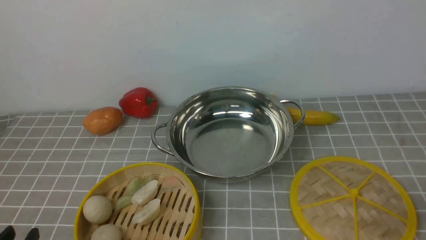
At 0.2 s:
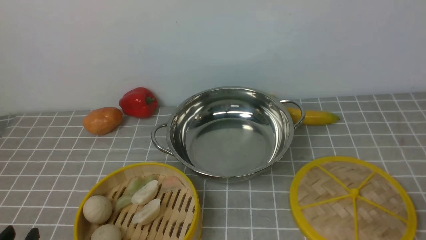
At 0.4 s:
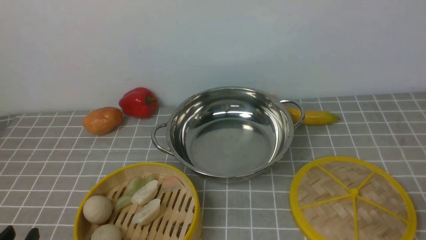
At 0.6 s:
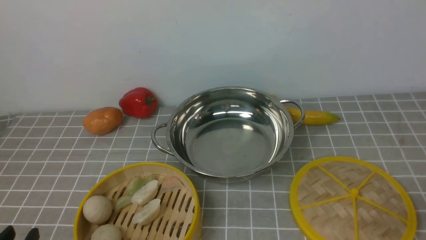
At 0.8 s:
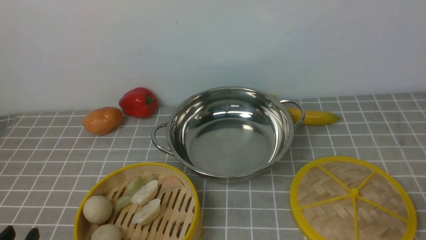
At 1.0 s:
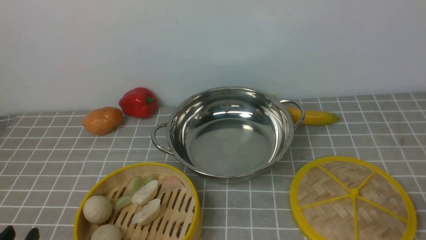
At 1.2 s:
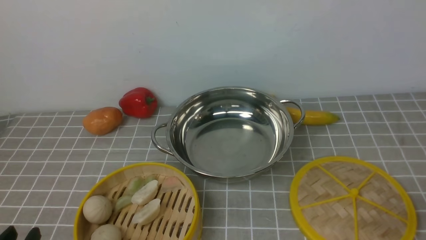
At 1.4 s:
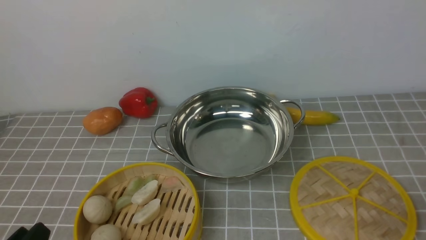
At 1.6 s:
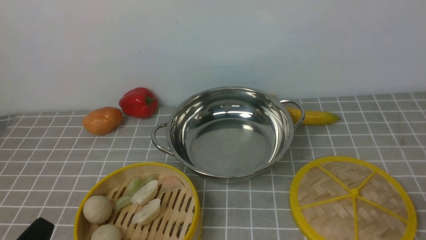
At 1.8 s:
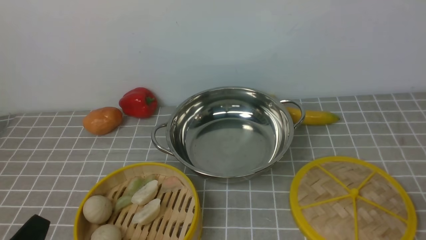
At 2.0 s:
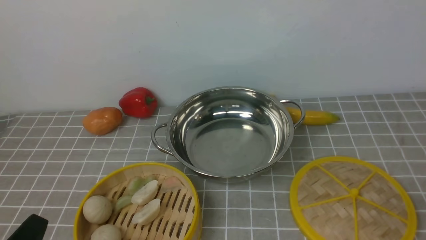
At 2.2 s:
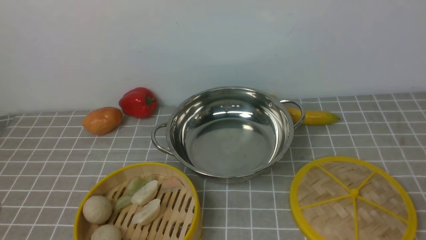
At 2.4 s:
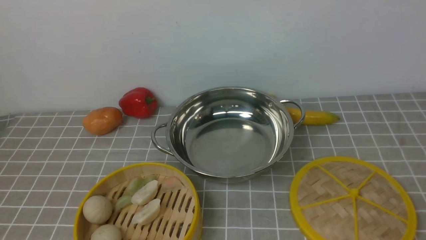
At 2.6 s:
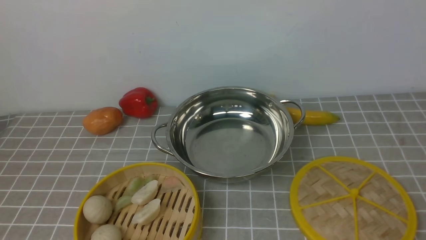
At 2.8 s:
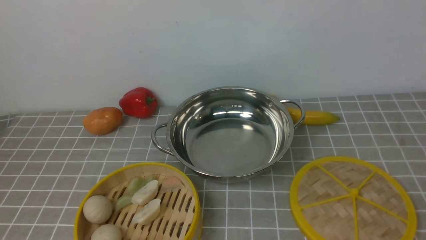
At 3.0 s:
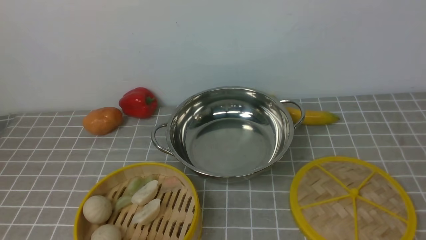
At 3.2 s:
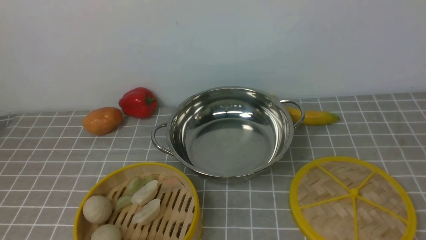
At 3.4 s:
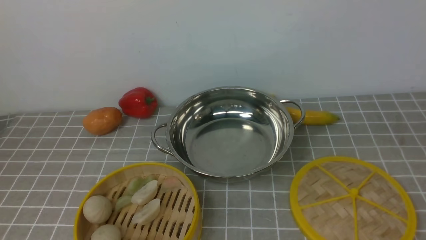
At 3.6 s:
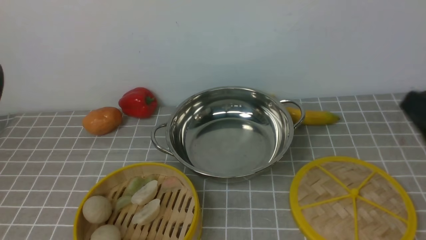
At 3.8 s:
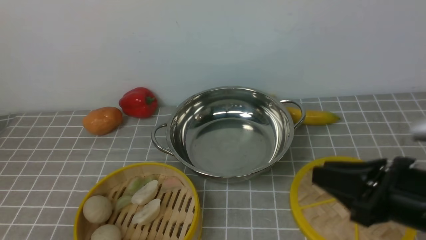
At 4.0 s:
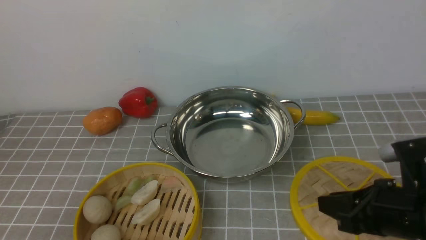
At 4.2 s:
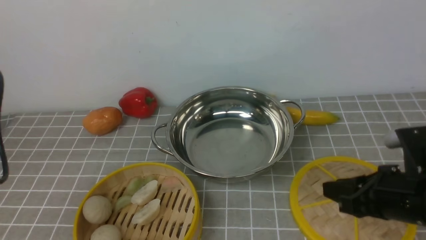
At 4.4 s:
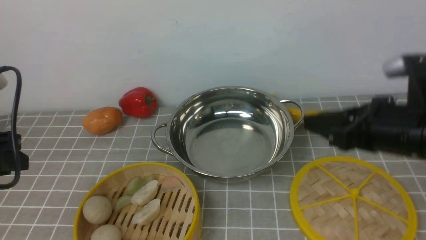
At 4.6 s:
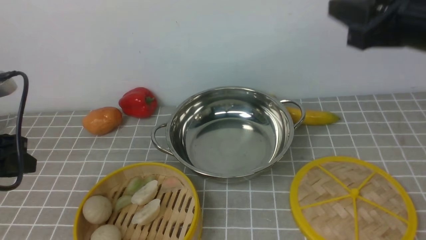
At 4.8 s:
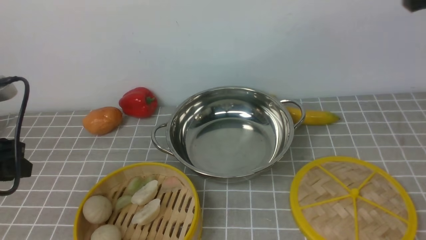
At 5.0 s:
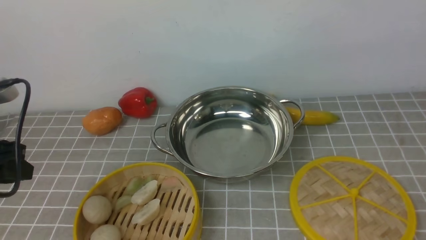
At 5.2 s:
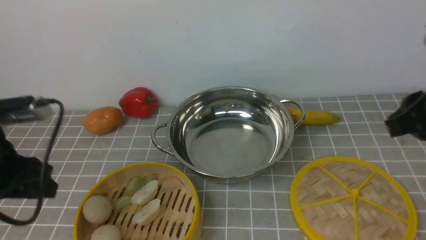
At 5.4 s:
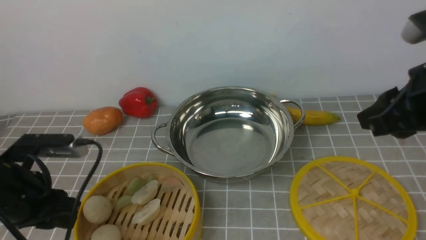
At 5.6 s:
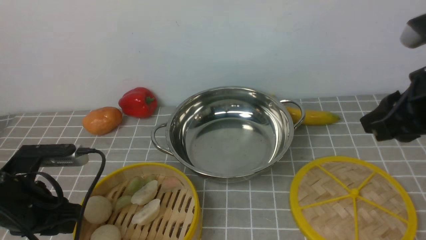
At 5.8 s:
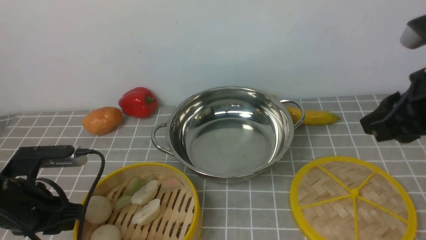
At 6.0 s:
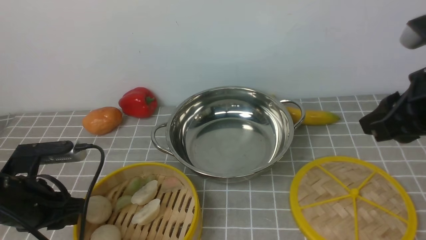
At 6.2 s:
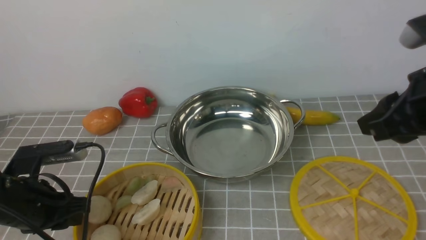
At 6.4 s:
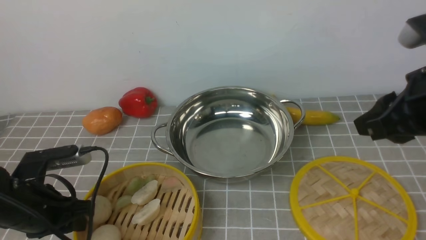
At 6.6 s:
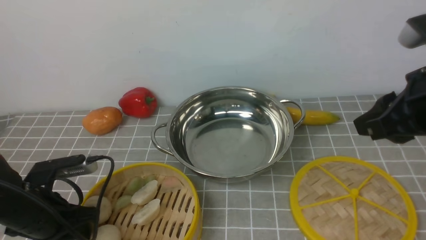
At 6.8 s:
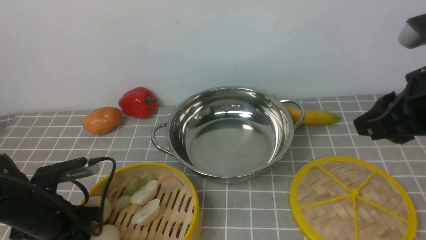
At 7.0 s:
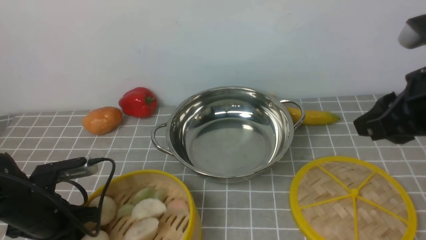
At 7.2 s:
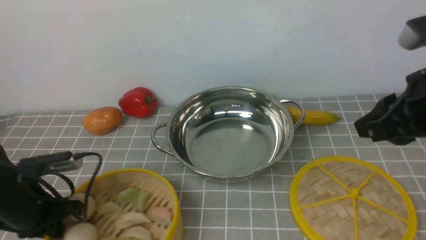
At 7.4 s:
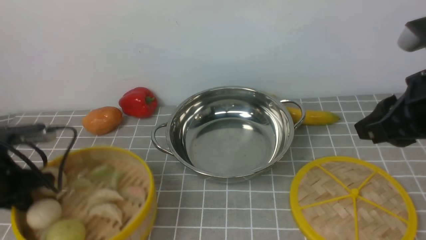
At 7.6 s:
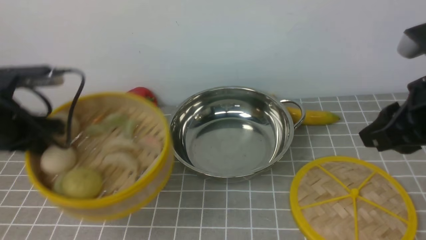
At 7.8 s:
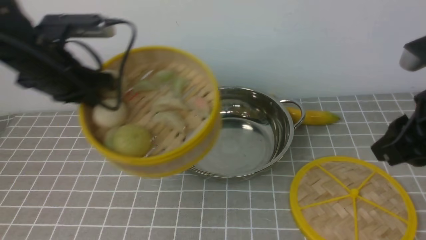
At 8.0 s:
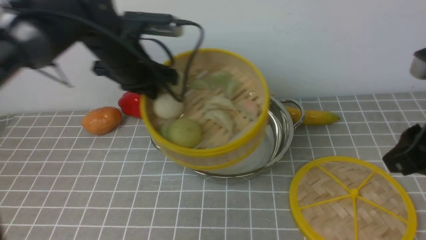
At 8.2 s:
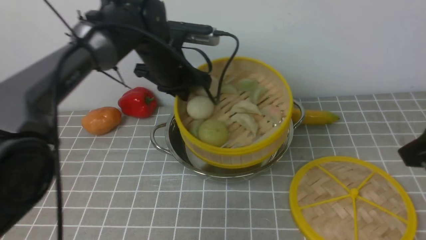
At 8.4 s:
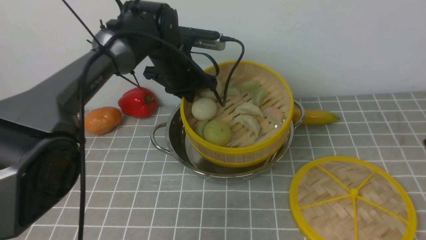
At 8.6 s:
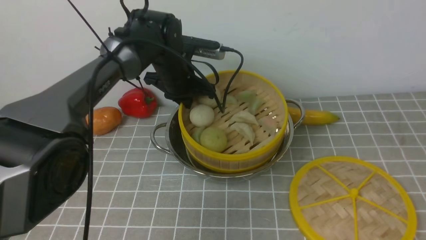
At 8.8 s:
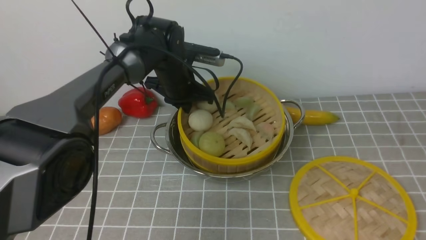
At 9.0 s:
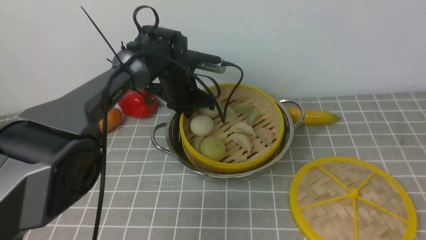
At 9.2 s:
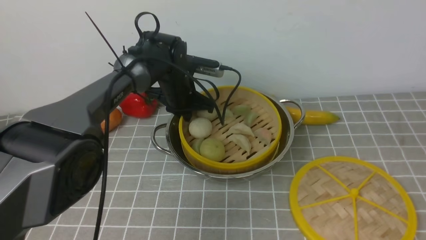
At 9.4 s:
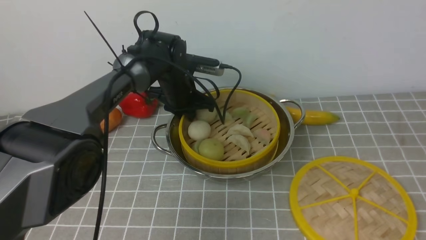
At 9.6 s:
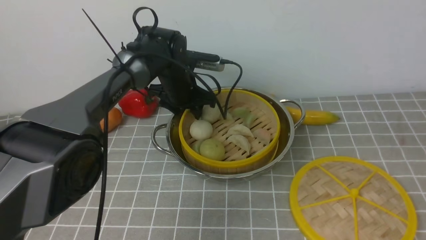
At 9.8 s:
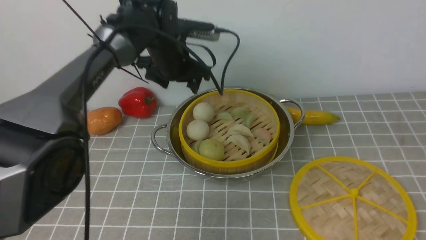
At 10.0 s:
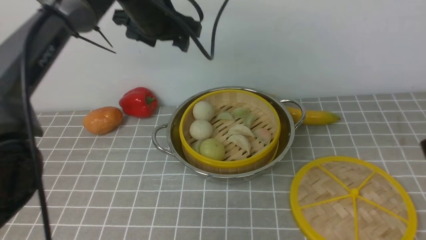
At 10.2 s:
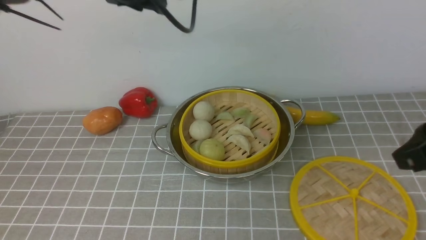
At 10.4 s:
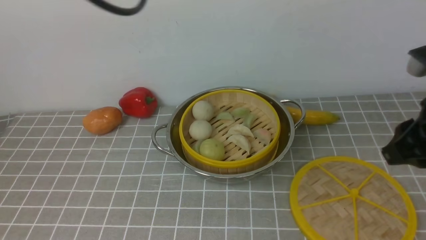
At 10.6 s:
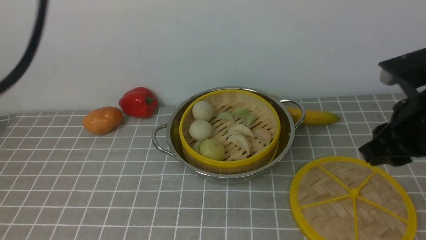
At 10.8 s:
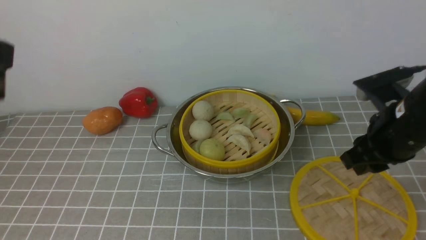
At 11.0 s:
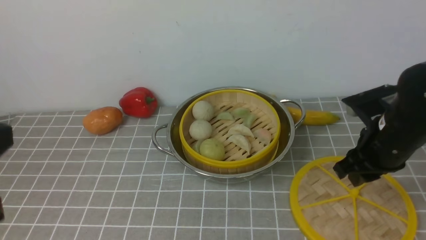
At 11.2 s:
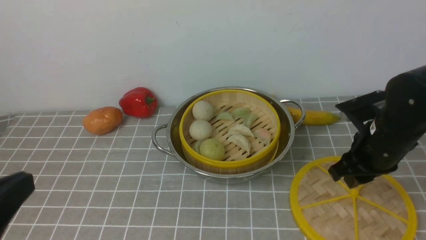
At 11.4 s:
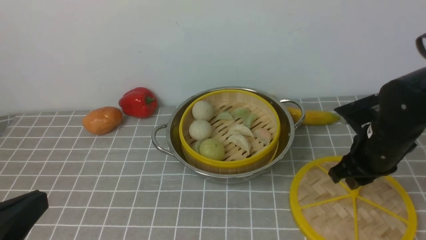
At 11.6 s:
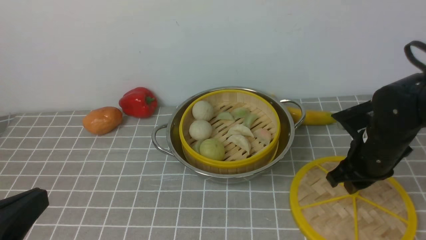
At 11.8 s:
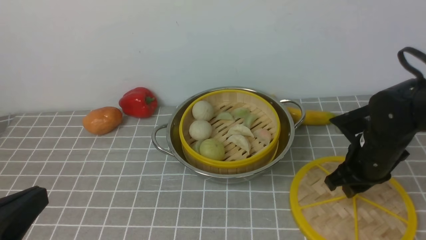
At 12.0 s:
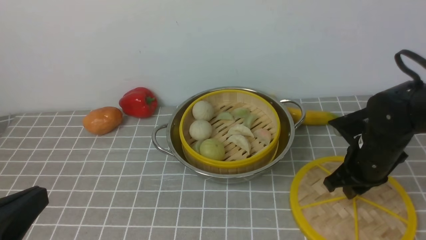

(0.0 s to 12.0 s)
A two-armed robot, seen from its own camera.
Task of the whole recording: place the steamer in the pot on the grey tablecloth, and put the lid on the steamer.
Step, 0.0 s - 7.2 s: use the left arm to lift the steamer closest to it.
Step, 7.4 s - 9.6 s: use the left arm to put the steamer into the iron steamer pot in the middle.
1.6 s - 3.0 s: The left gripper moves upward, approximately 20 cm.
3.0 s - 4.4 s: The right gripper goes some 20 cm forward and to the left, while the left gripper shifts approximately 20 cm forward, downward and to the left.
4.4 s - 6.0 s: The right gripper goes upward and returns, some 10 cm each way; the left gripper travels downward and to the right by approximately 10 cm.
6.0 s - 7.6 s: The left gripper is displaced forward and upward by some 15 cm, and closes its fingers.
7.6 s - 9.0 s: The right gripper goes some 15 cm backward and upward. The left gripper travels to the right, forward and downward by approximately 25 cm.
9.0 s - 10.4 s: The left gripper heads upward and backward, covering about 35 cm, and opens, then closes again; the right gripper travels forward and downward by roughly 15 cm.
10.4 s - 12.0 s: The left gripper goes some 30 cm backward and downward; the right gripper is displaced downward and forward by about 15 cm.

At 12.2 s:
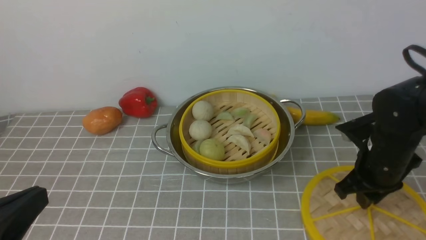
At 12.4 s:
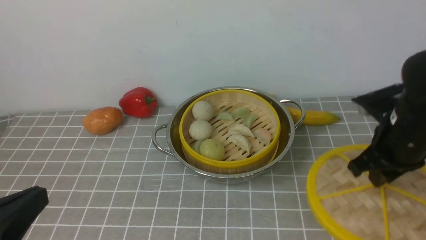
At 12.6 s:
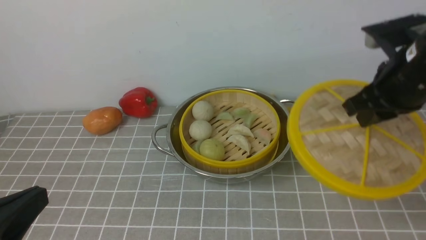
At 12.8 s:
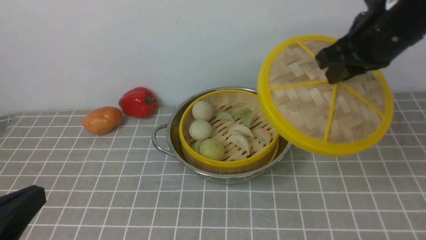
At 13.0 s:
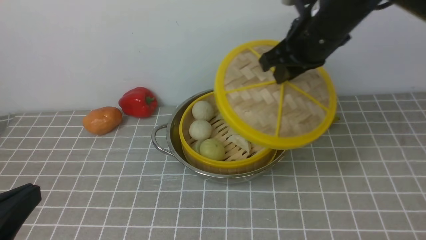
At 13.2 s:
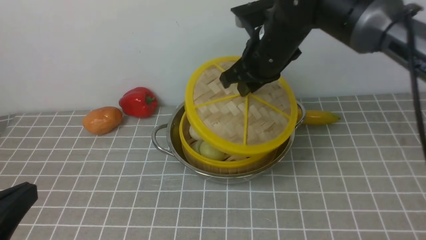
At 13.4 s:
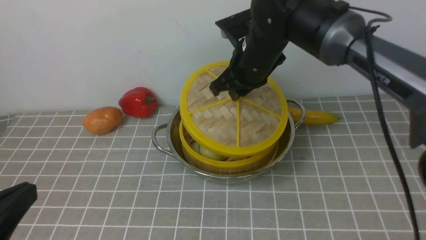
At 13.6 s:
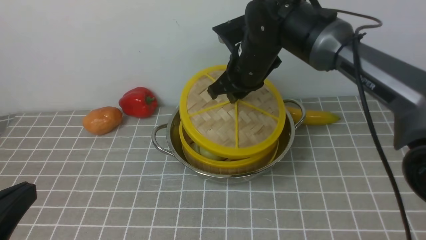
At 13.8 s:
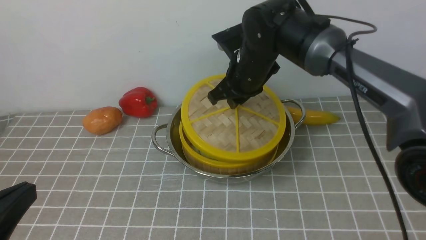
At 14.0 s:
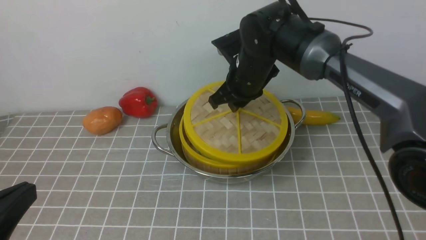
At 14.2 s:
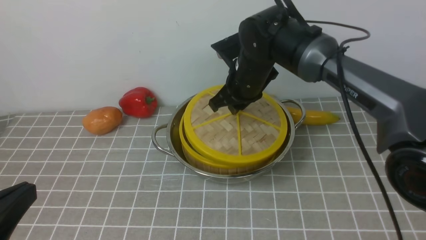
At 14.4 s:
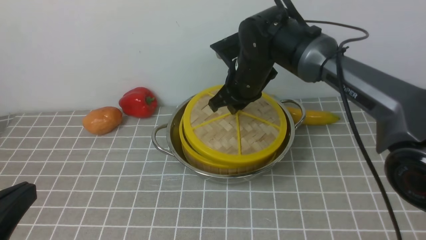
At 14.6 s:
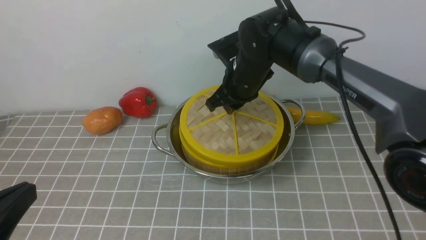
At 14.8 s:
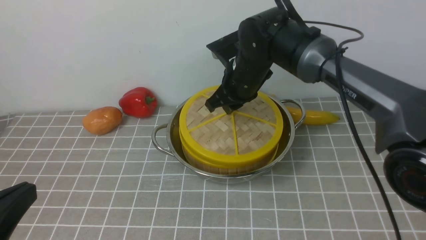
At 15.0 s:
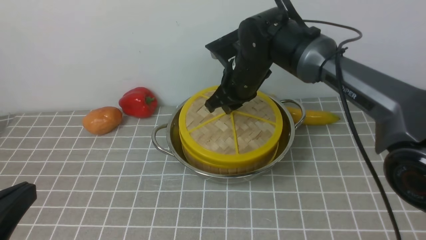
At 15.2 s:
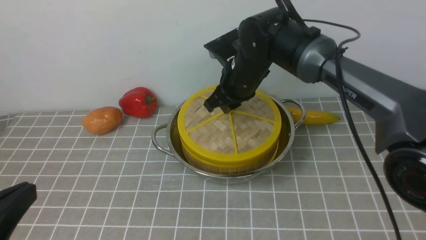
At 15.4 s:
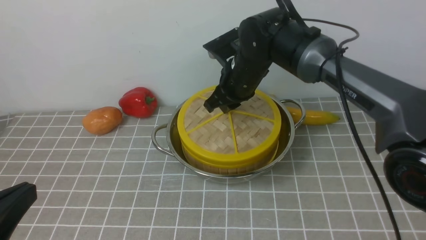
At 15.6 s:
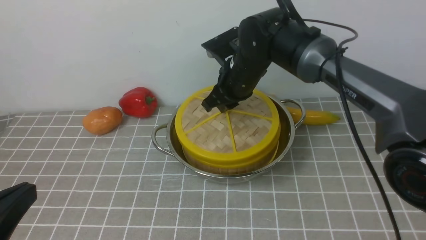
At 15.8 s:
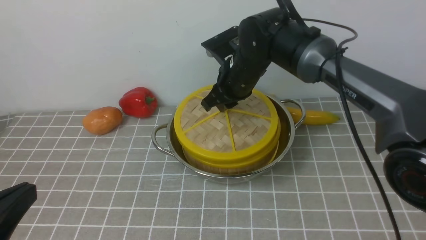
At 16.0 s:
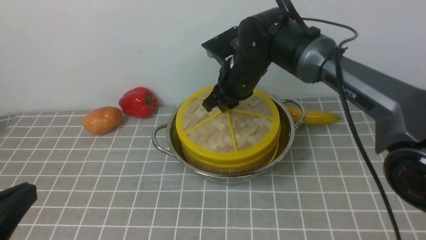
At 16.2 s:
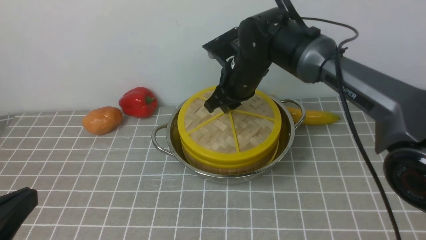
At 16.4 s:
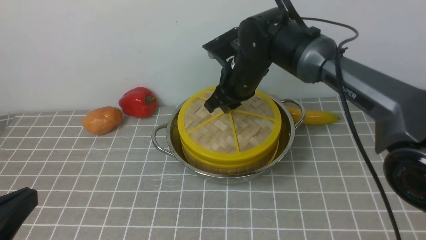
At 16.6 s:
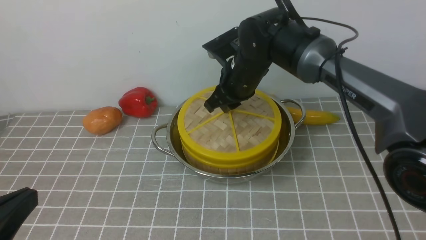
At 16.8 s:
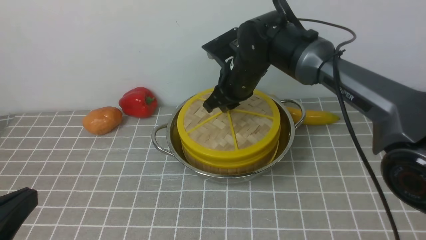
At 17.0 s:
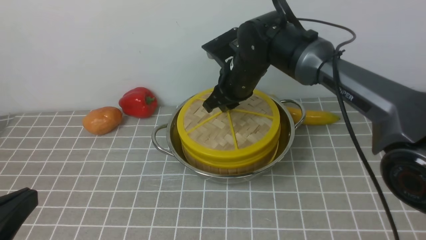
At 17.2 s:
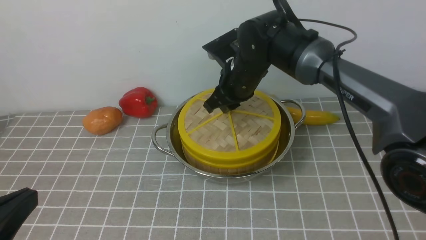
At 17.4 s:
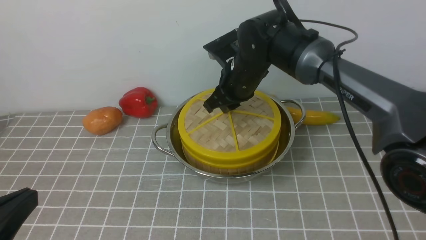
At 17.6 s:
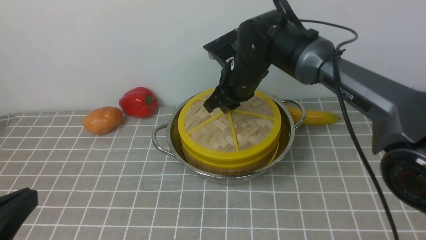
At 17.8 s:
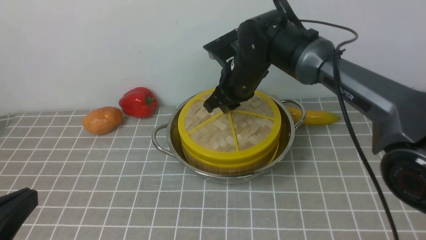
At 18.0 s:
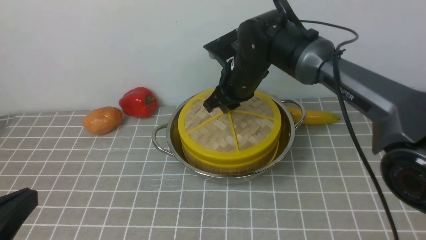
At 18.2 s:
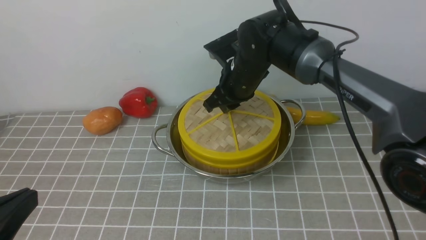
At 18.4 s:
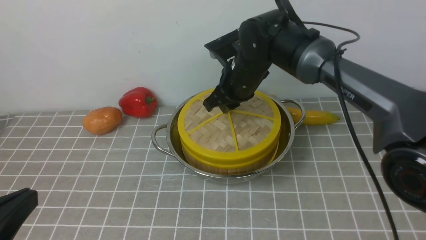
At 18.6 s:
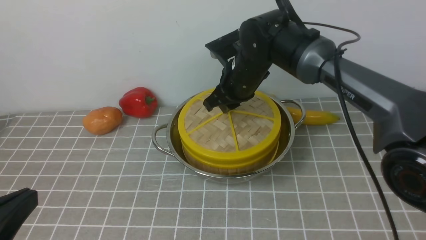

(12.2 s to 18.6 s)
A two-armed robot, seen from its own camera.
Task of the whole recording: place the steamer in the pot on the grey tablecloth, and put the lid on the steamer.
12.2 s - 13.8 s: The right gripper heads to the left and forward, covering about 20 cm.
13.8 s - 15.4 s: The grippers make only small movements.
15.4 s - 18.6 s: Both grippers stay put.
